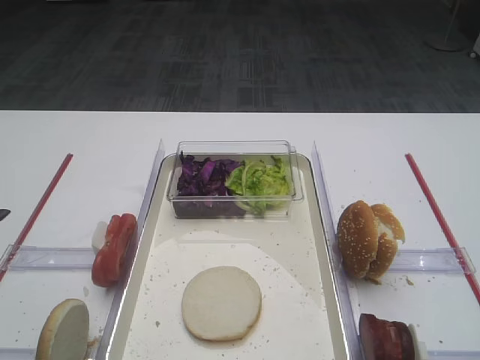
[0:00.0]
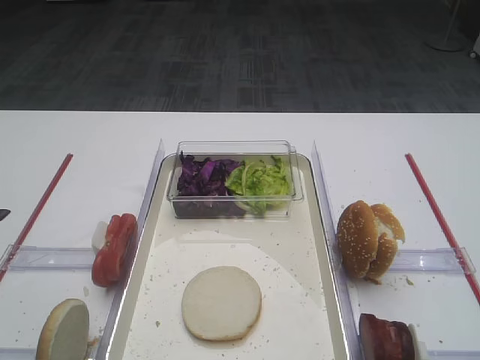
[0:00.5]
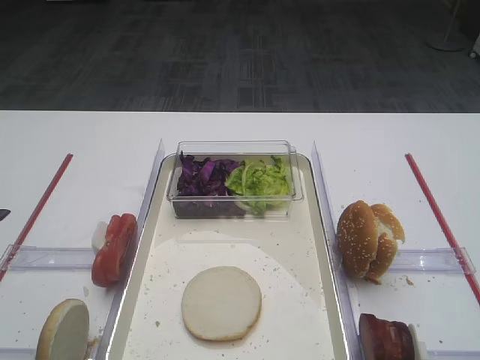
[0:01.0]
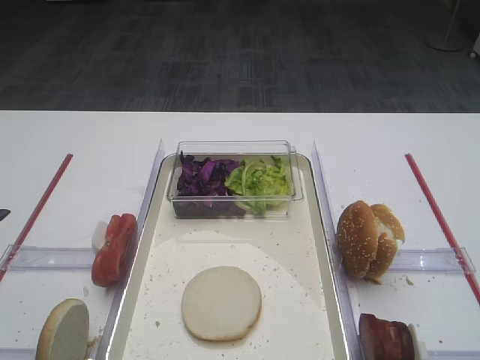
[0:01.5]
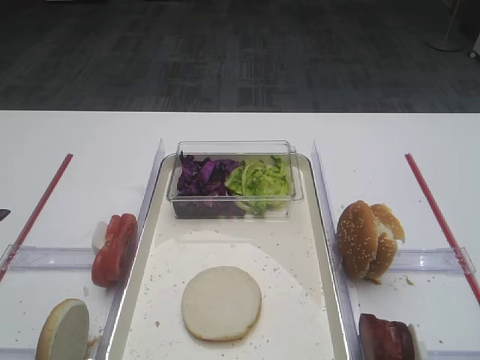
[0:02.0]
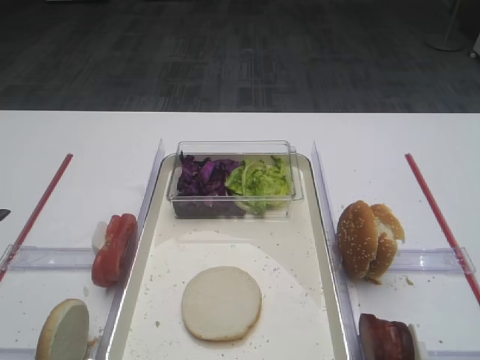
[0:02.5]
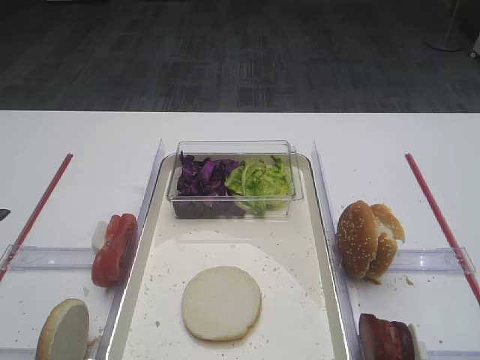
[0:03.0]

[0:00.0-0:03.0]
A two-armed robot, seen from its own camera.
0:01.5 to 0:03.0: Neither gripper changes place.

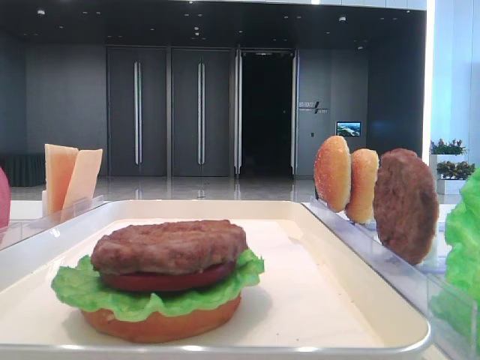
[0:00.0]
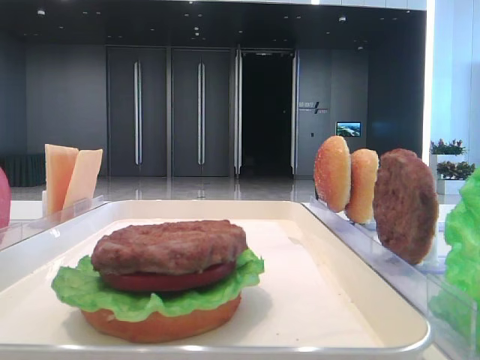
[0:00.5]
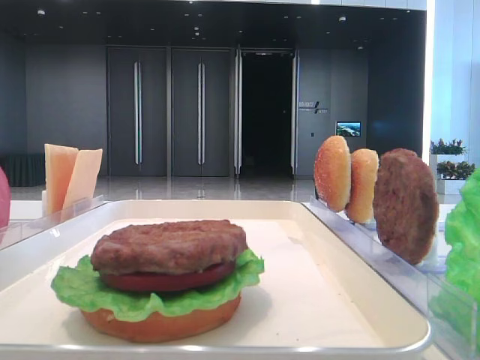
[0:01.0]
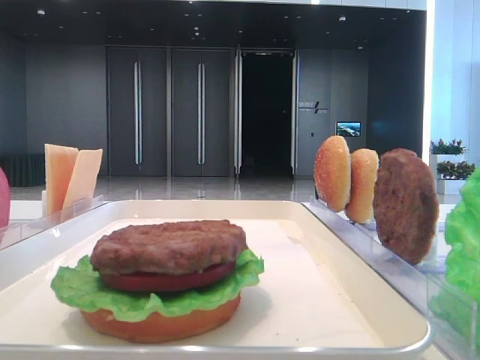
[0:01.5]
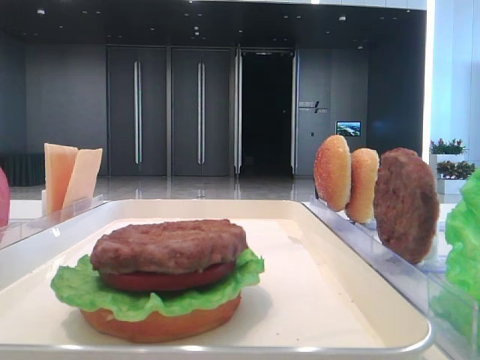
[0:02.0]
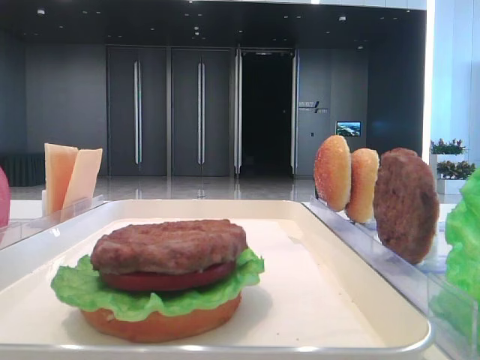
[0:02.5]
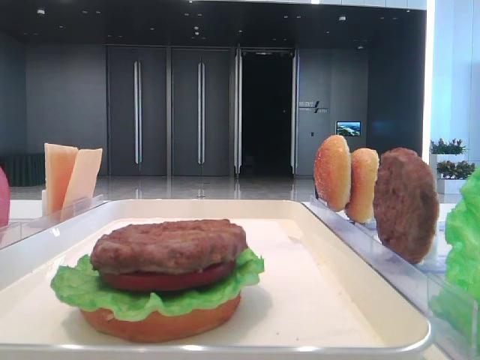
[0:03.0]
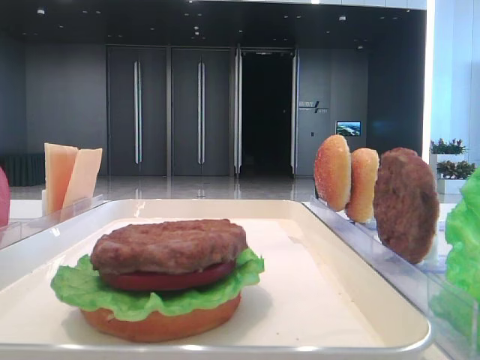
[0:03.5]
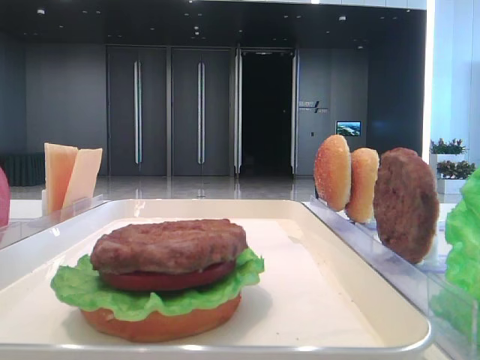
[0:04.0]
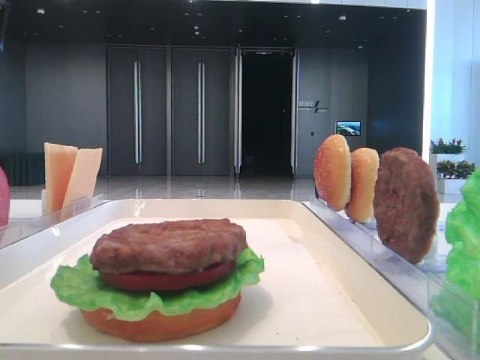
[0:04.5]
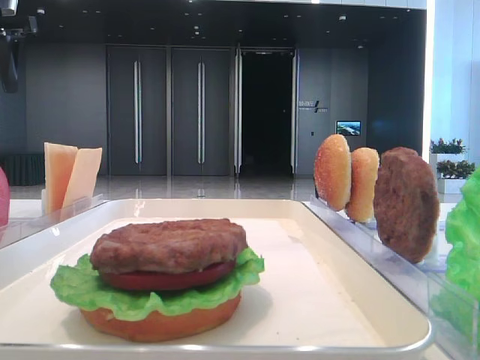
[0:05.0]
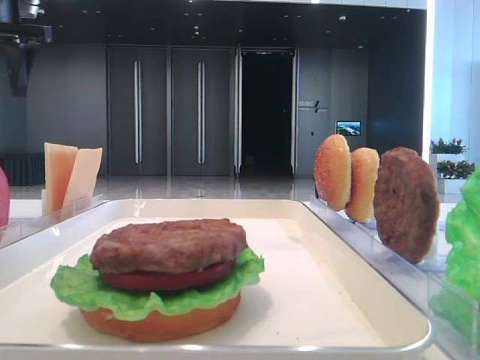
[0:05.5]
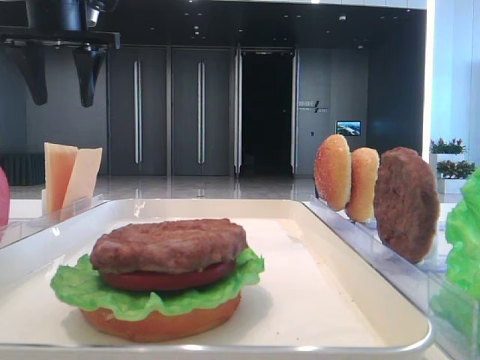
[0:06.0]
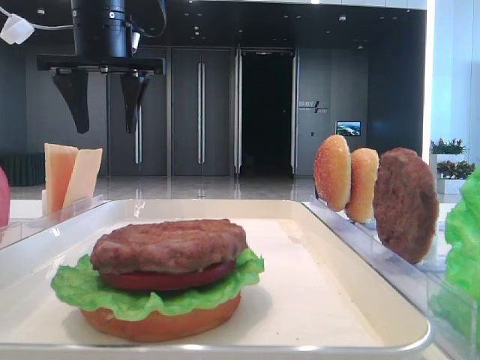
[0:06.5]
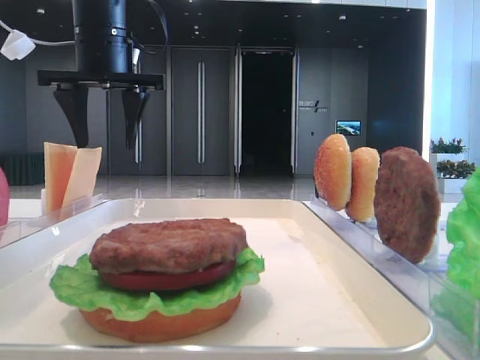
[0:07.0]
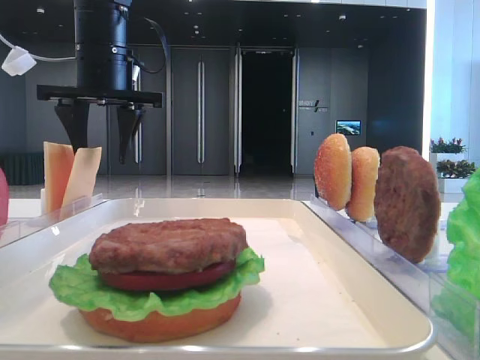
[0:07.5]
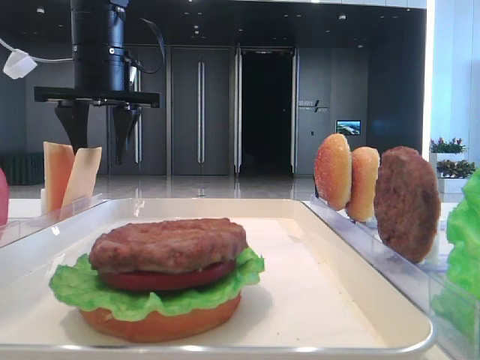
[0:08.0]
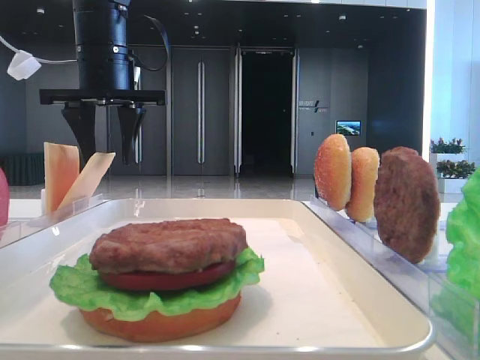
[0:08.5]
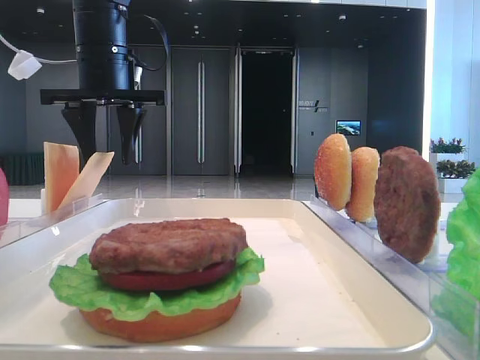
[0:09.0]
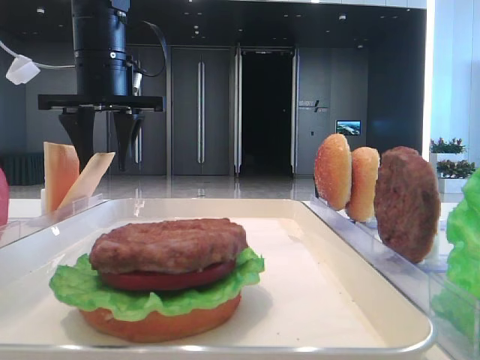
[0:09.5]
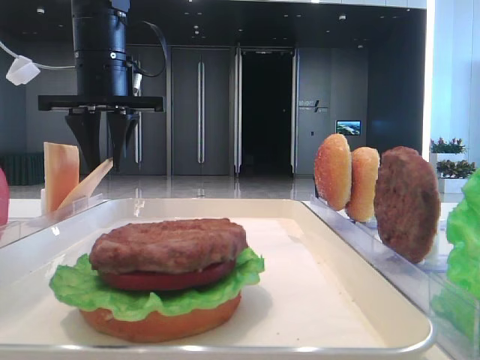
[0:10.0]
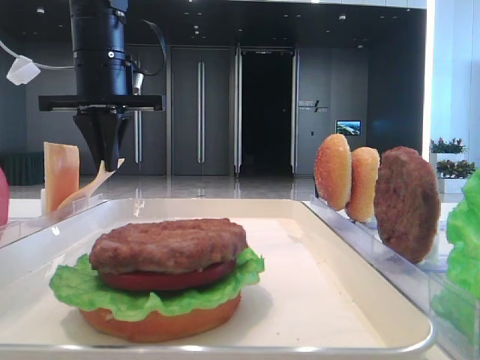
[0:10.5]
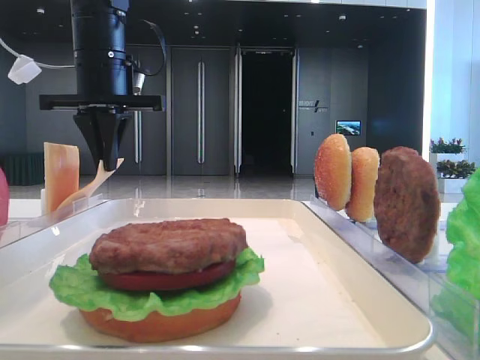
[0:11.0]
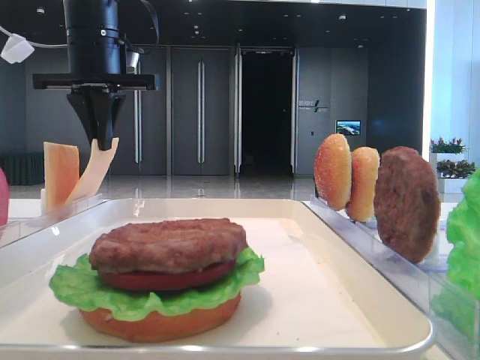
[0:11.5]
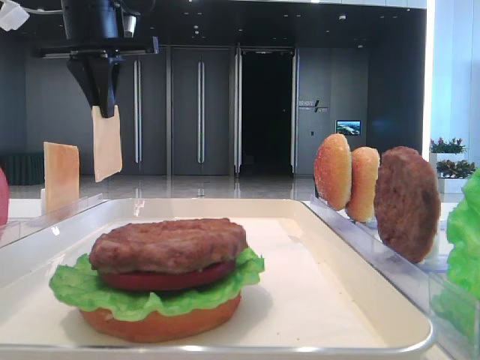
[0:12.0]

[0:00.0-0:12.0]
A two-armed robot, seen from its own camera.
Step, 0:00.0 to 0:11.0: Pick up the cheese slice with the left hand.
0:04.0 to 0:06.0: The left gripper heads forward, to the right and downward, covering some 15 cm.
0:06.0 to 0:08.0: The left gripper is displaced downward and to the right by some 10 cm.
0:08.0 to 0:10.0: Both grippers stay about where they are.
0:10.0 to 0:12.0: The left gripper moves upward, some 5 cm.

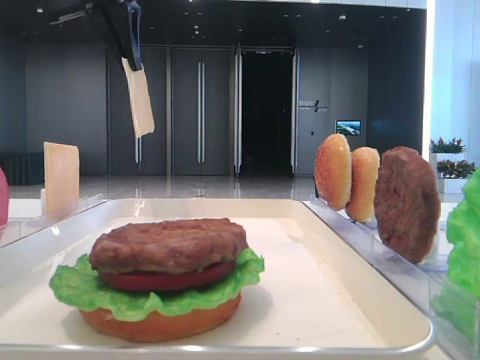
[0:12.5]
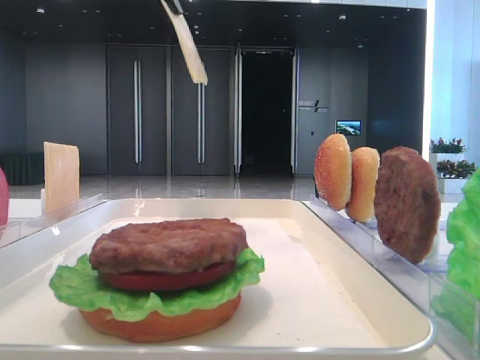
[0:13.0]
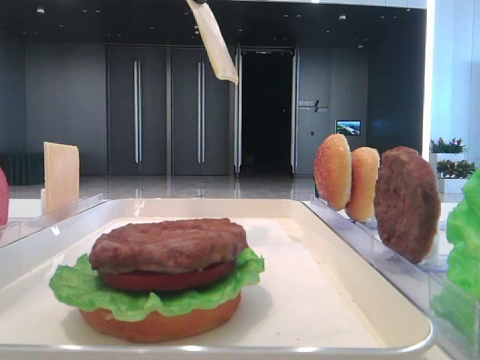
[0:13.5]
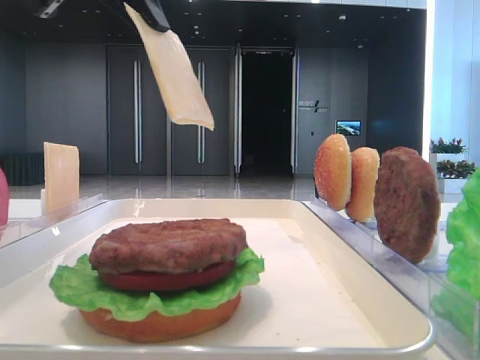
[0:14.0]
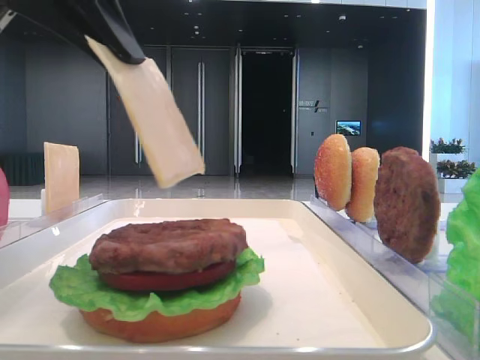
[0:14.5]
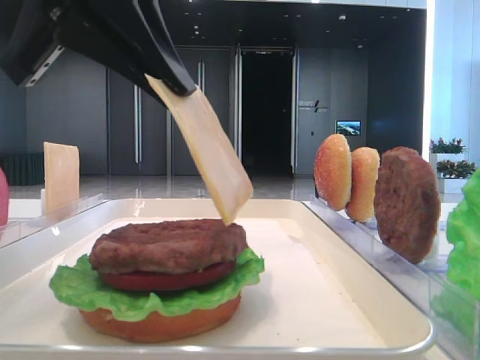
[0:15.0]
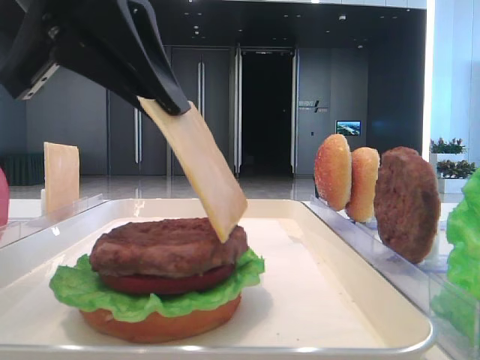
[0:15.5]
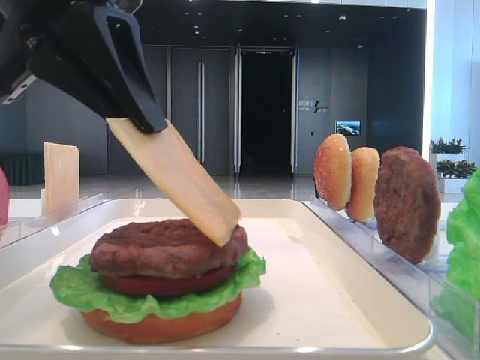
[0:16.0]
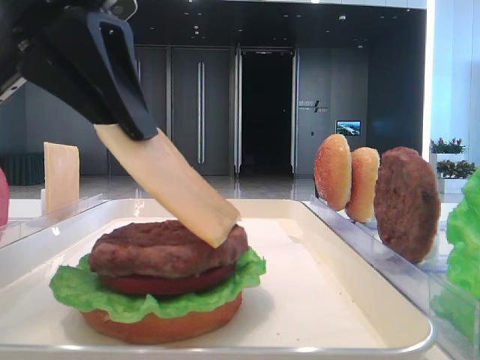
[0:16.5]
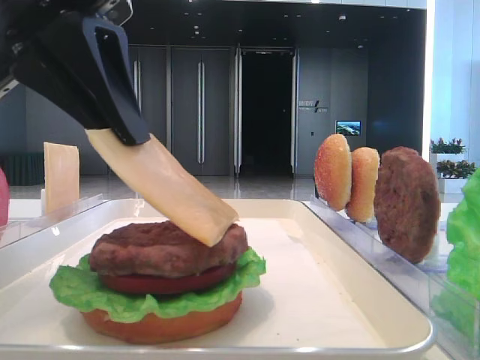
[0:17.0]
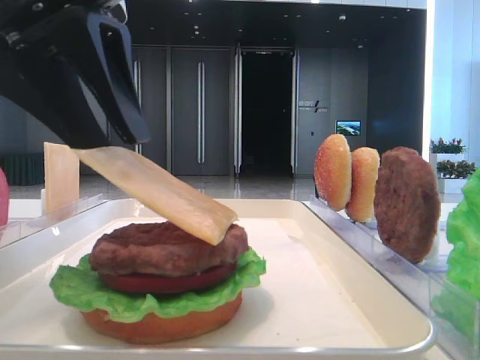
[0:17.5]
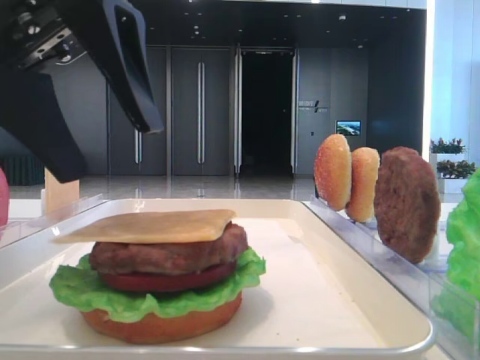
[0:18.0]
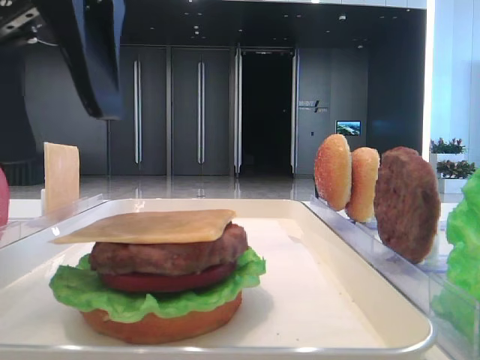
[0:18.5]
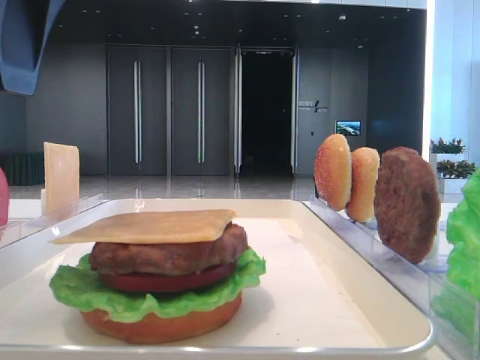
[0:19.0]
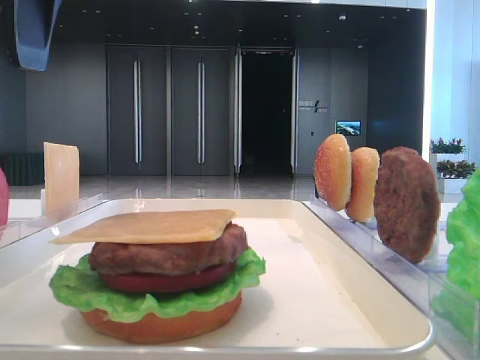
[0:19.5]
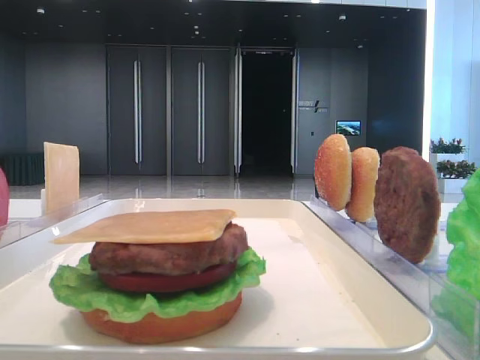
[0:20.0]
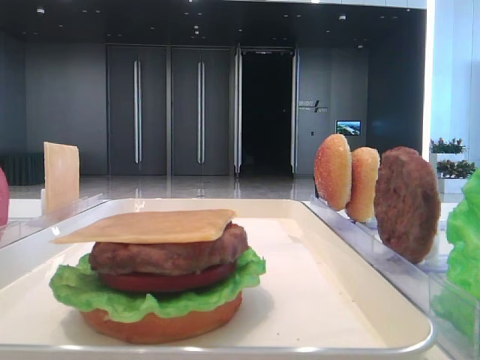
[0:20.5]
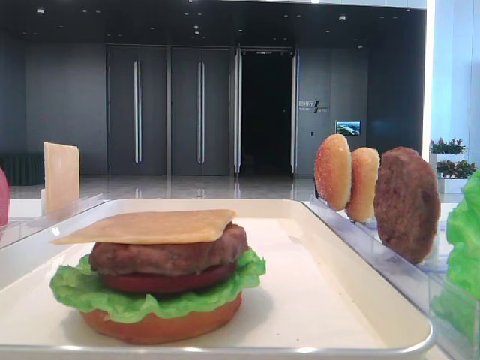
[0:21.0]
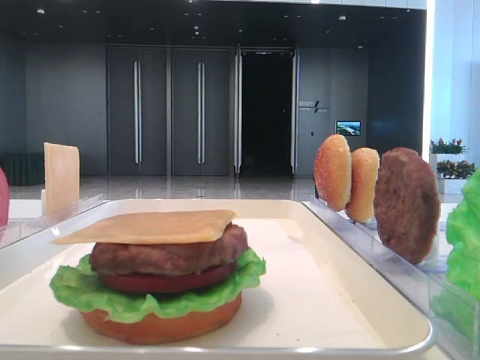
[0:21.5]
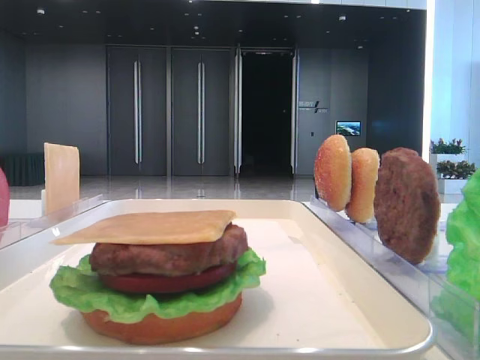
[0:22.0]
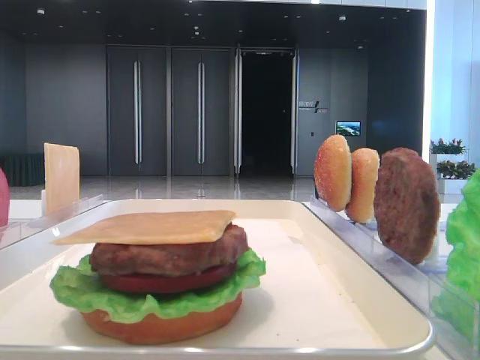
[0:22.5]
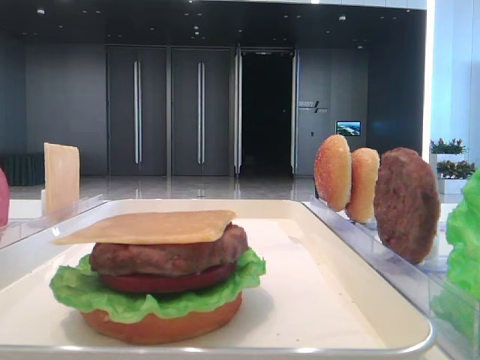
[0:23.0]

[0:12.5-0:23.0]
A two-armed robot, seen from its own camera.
Step, 0:12.5 to 0:17.5: Place the cheese slice on the patty with the left hand.
0:12.5 to 0:14.5: The left gripper shifts about 20 cm backward.
0:14.5 to 0:16.5: The grippers stay close to where they were, moving slightly.
0:16.5 to 0:19.0: The left gripper moves some 5 cm, and opens up.
0:19.0 to 0:21.0: The left gripper goes approximately 15 cm to the left and upward.
